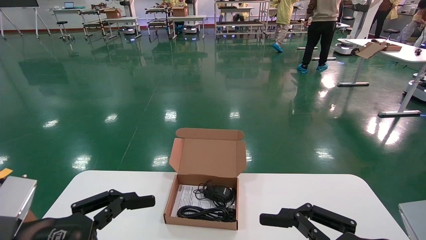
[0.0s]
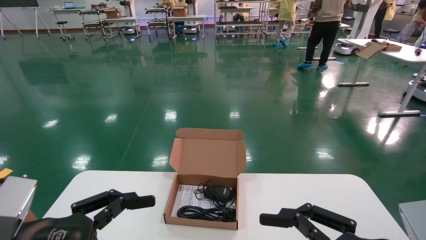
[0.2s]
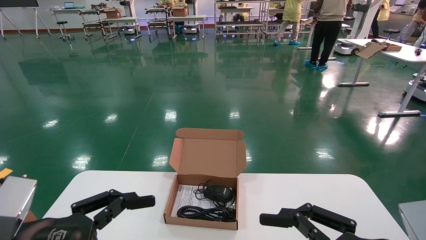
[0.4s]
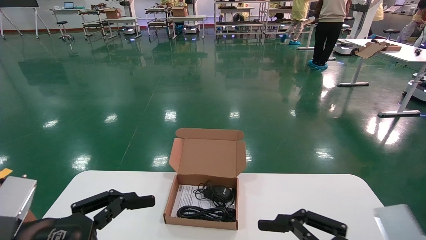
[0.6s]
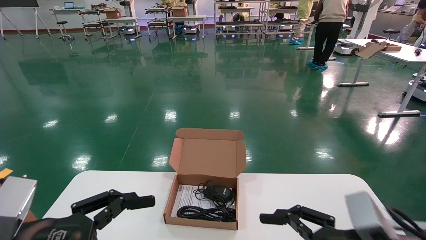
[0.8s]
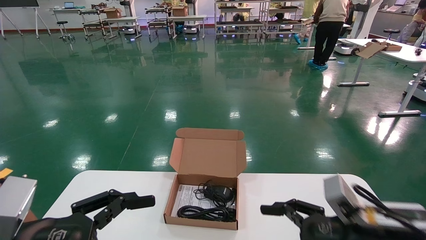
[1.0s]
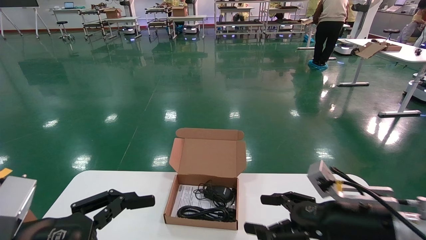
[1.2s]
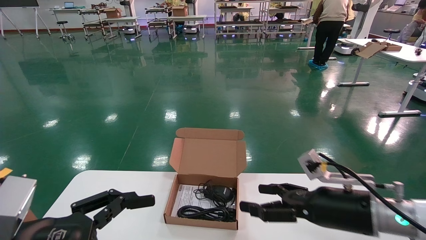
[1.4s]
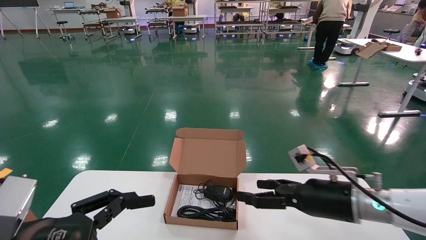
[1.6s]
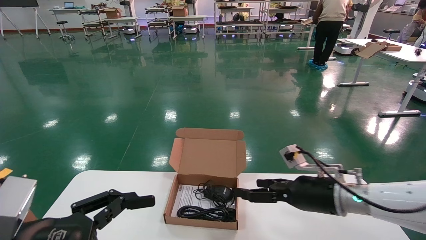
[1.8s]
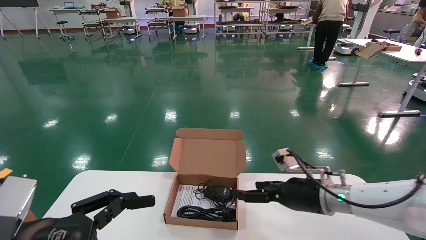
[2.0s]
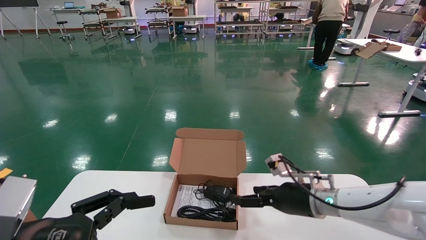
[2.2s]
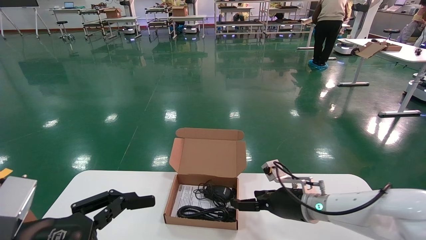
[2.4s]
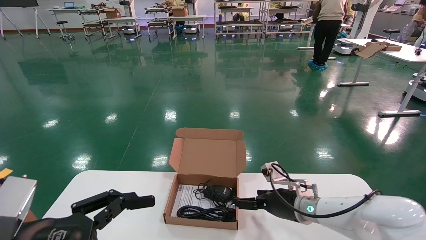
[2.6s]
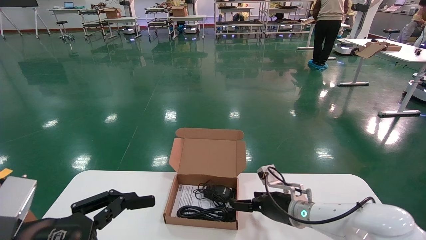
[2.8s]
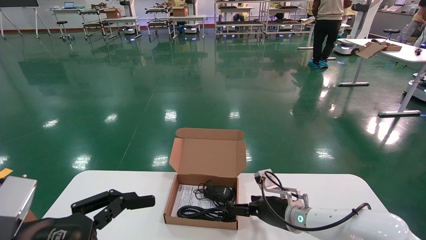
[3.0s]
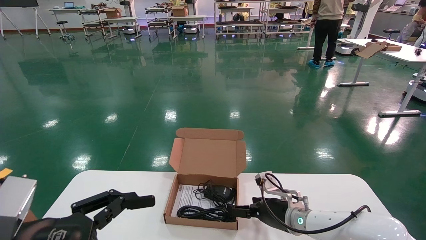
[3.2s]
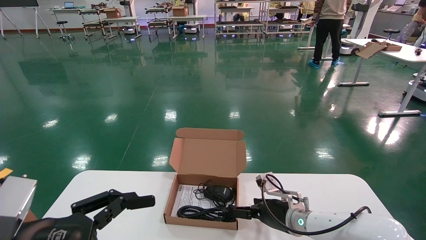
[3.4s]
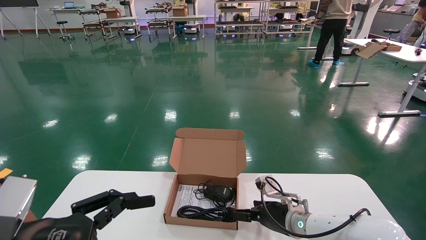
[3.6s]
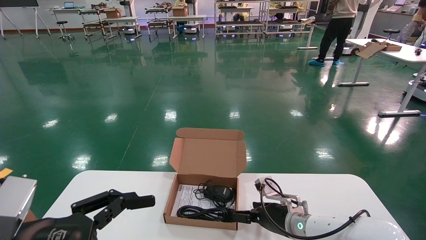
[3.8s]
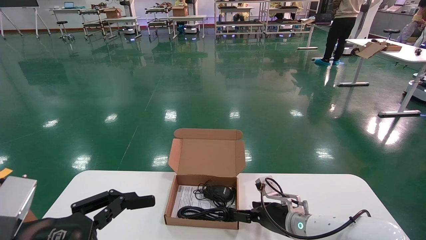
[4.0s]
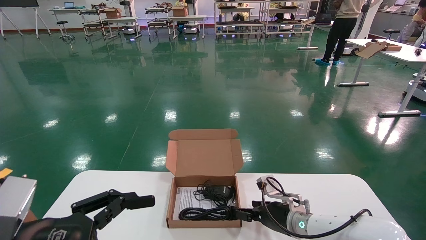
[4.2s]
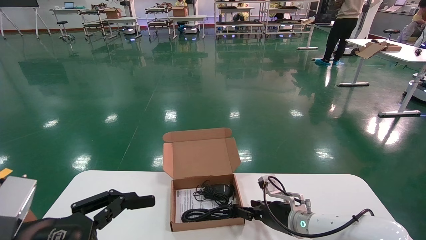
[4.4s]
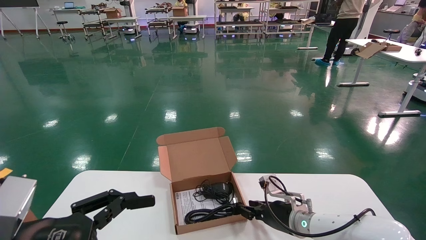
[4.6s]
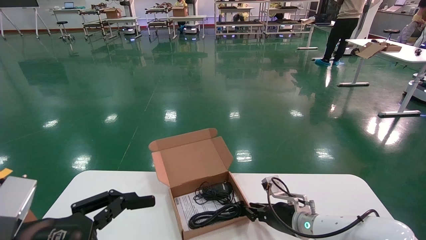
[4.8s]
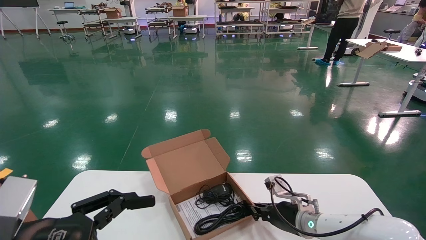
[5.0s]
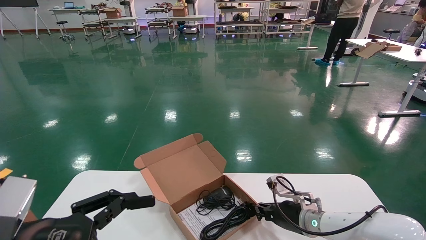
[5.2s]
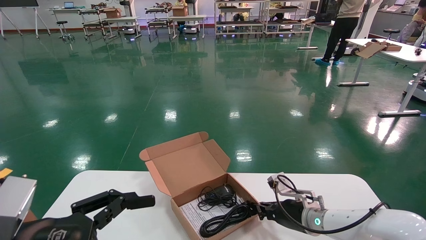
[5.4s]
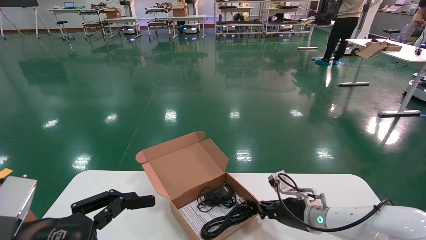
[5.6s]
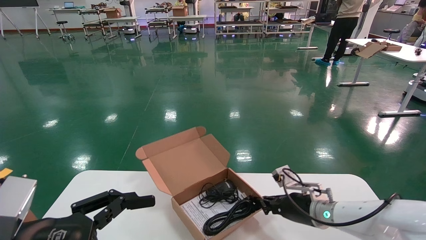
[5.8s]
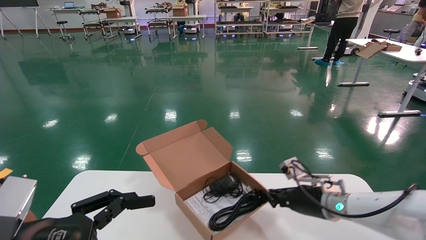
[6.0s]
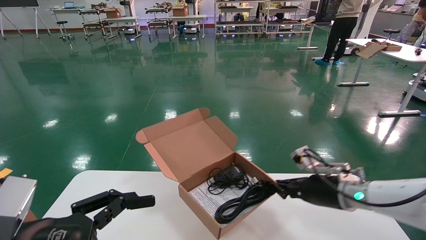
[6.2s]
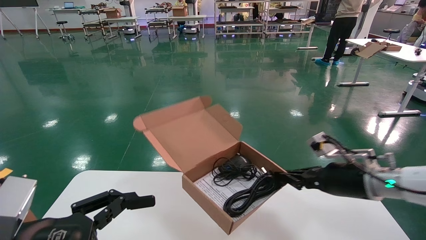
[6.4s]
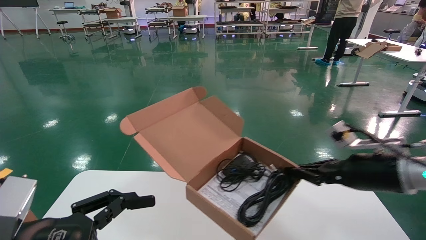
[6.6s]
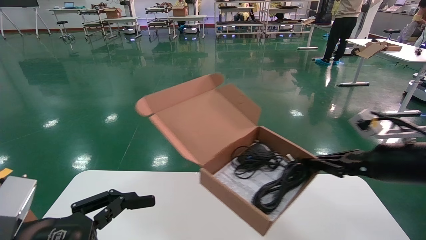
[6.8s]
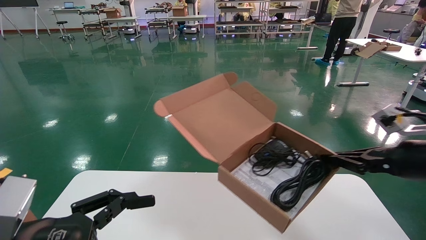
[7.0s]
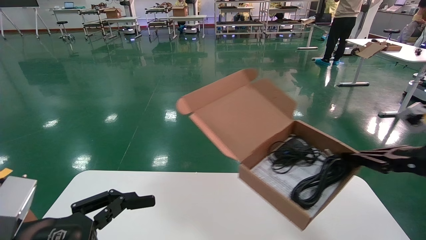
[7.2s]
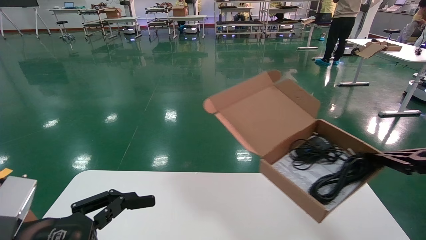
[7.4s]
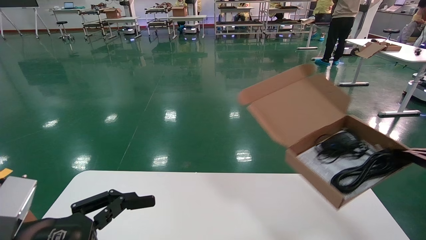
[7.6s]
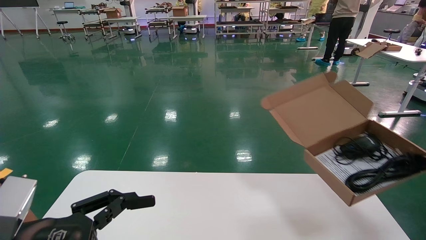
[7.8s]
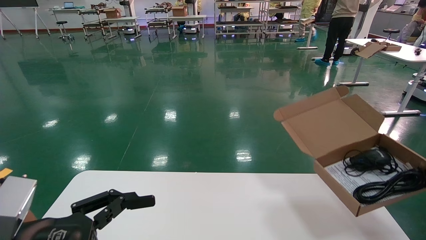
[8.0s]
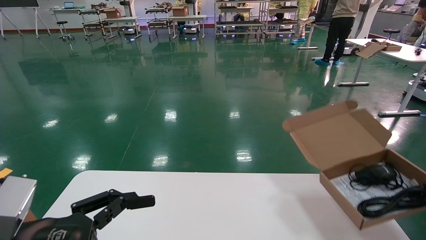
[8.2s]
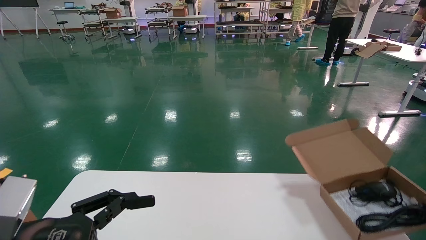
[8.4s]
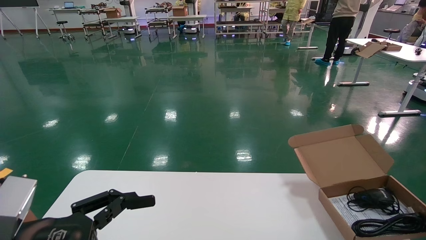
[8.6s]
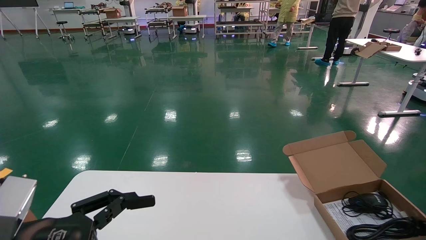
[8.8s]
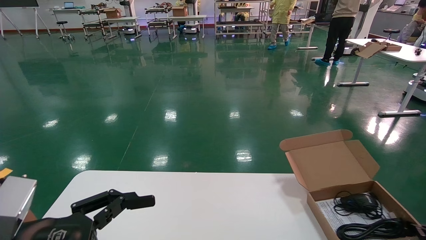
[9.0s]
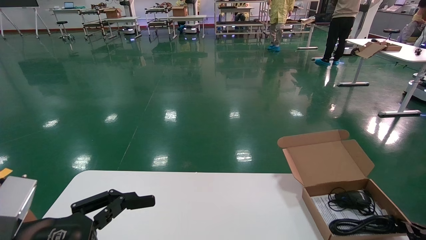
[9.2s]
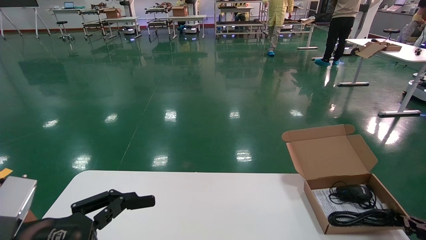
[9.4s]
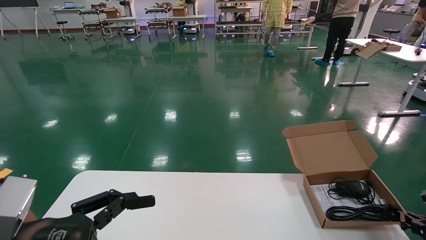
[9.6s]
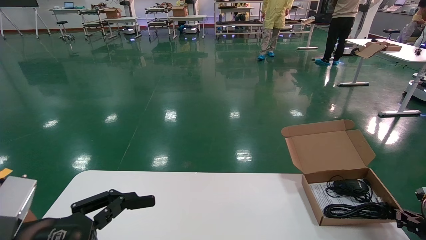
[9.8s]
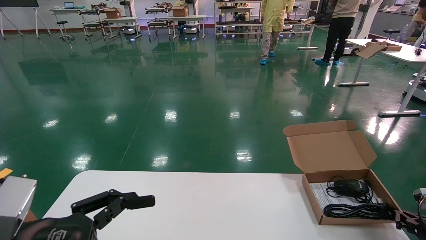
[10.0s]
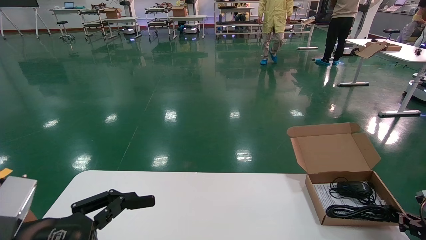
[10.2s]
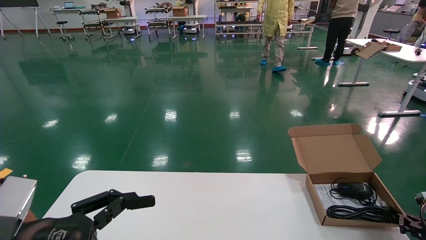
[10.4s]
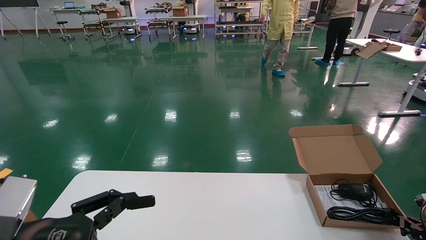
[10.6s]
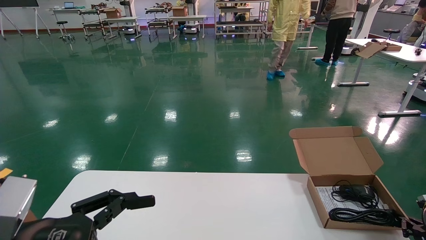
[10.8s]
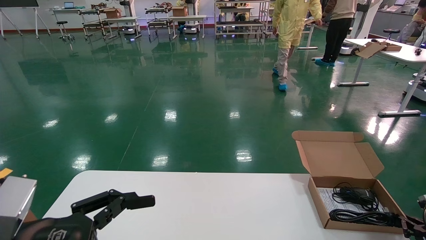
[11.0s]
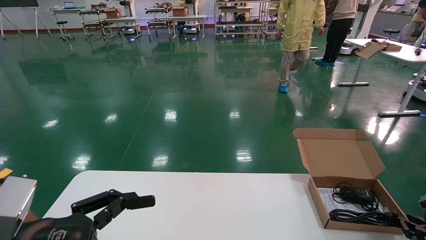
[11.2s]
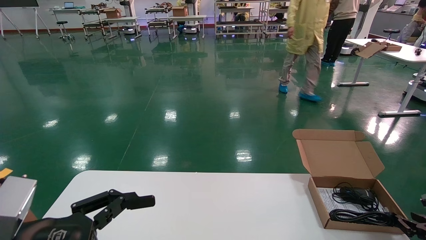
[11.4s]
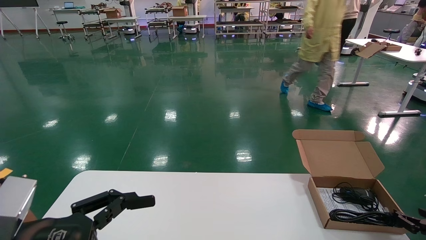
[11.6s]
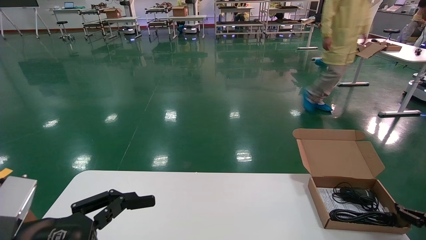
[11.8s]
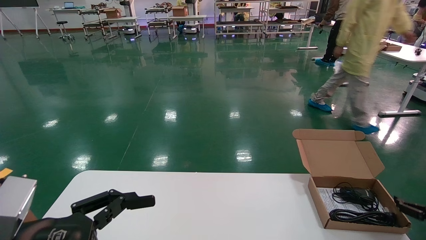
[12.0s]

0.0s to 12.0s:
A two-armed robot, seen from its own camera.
Task of the whole recording: move the position of the storage box with accessories on the table.
Step, 1.0s to 5.4s: Grab and pick up the open mouse box from the accessory packaging area.
Step, 5.6s to 11.6s: Place the open mouse box onto the operation table.
0.0s to 1.6s: The right gripper heads forward, covering approximately 20 cm.
1.6s to 3.0s: The right gripper moves forward, downward and to the left, about 15 cm.
3.0s to 4.4s: The grippers make only small movements.
4.4s to 6.0s: The right gripper shifts approximately 10 cm upward and to the right, and closes its fingers.
6.0s to 7.6s: The right gripper travels to the right, backward and upward by roughly 30 cm.
7.6s to 9.0s: The right gripper is displaced downward by some 20 cm.
9.0s to 10.4s: The grippers make only small movements.
10.4s to 12.0s: The right gripper moves approximately 5 cm, and opens.

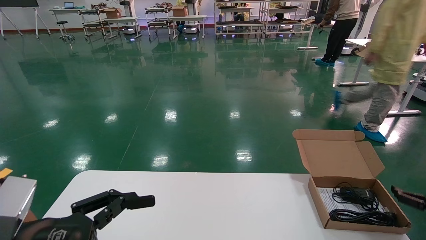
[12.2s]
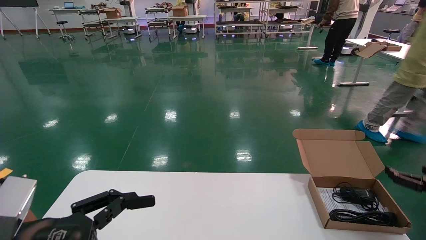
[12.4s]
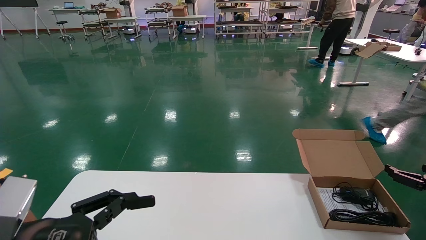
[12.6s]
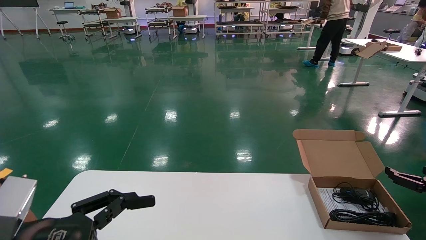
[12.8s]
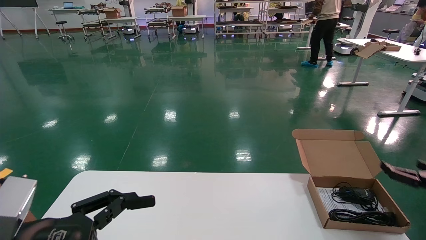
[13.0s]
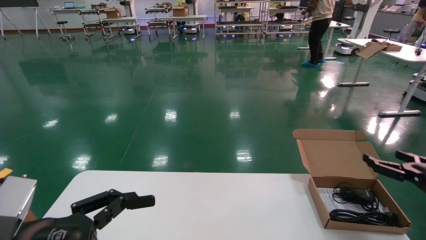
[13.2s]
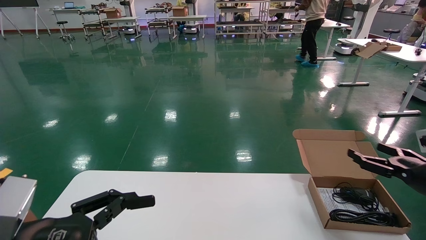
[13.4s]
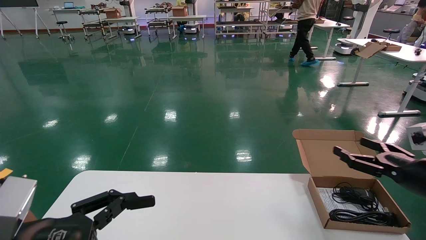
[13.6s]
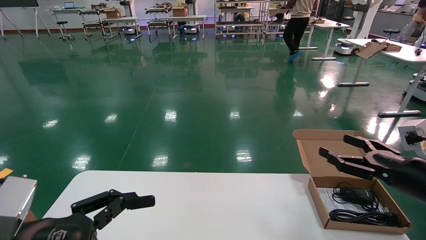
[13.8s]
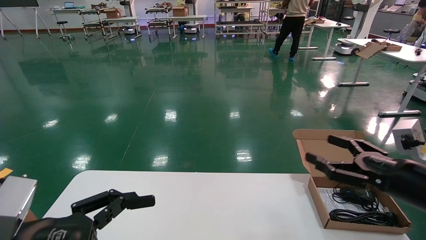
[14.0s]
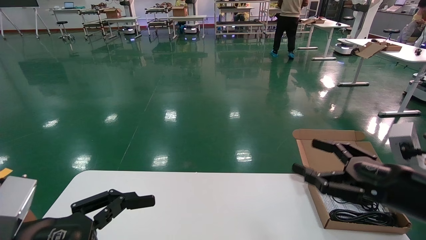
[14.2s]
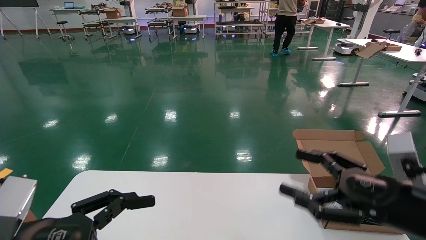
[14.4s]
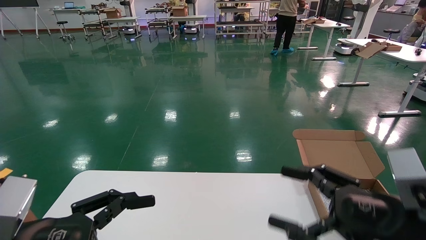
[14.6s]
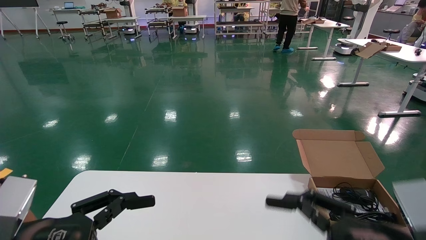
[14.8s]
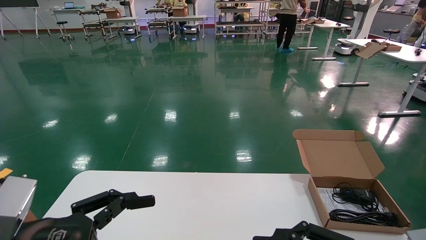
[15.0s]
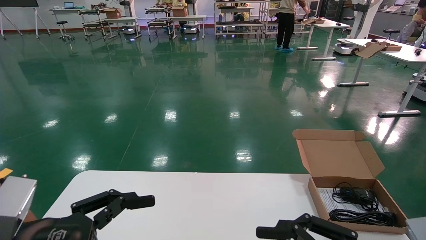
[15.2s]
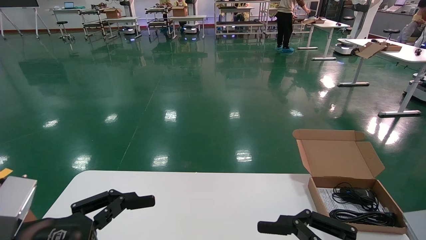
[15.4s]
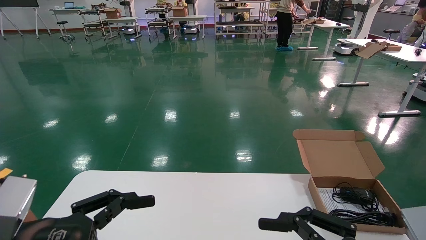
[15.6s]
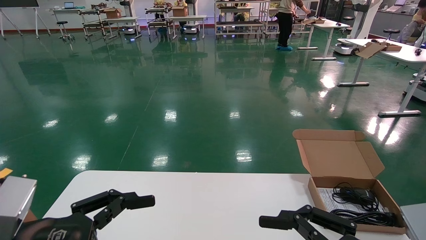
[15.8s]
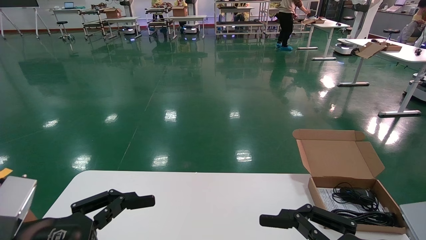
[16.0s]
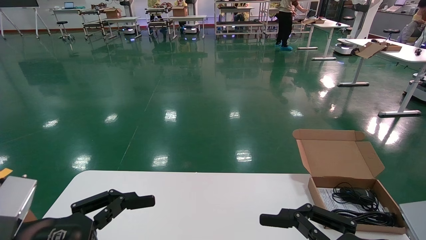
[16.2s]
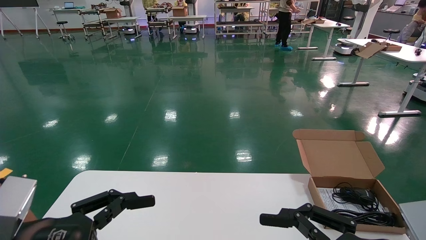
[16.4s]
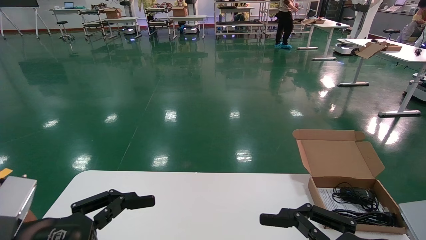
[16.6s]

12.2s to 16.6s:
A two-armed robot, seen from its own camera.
Task of the whole recording: move the position of the storage box with accessories on the table.
12.2s to 13.6s: The right gripper goes approximately 15 cm to the left and upward.
13.6s to 15.2s: The right gripper heads backward and to the left, covering about 25 cm.
15.2s to 16.6s: Neither gripper changes place.
